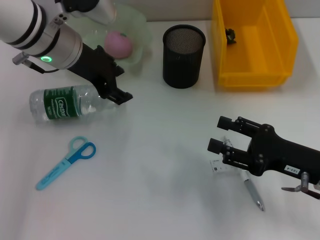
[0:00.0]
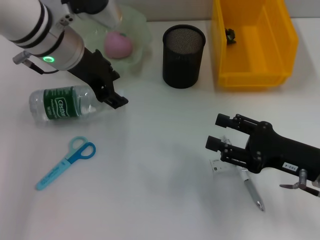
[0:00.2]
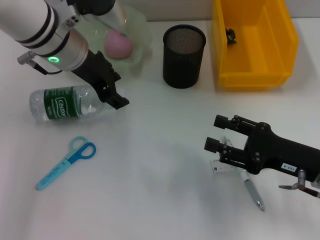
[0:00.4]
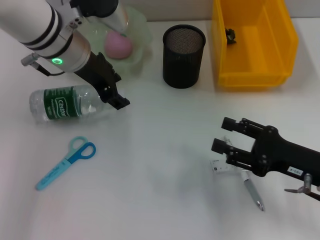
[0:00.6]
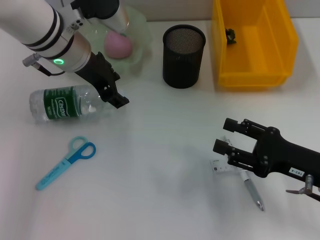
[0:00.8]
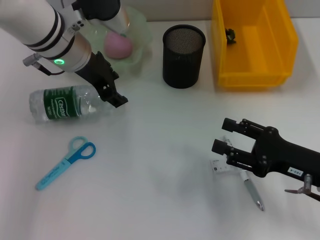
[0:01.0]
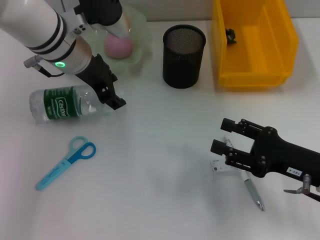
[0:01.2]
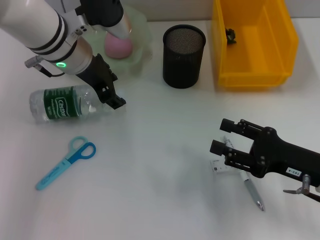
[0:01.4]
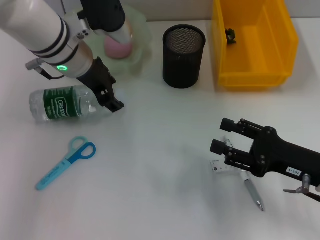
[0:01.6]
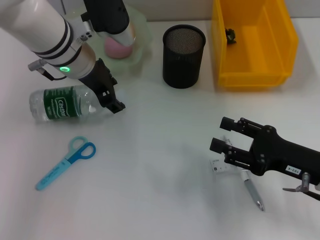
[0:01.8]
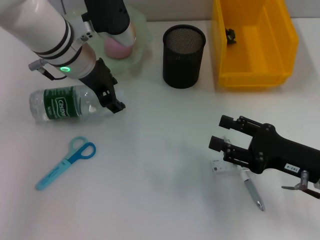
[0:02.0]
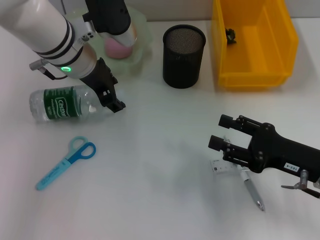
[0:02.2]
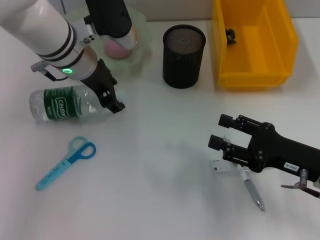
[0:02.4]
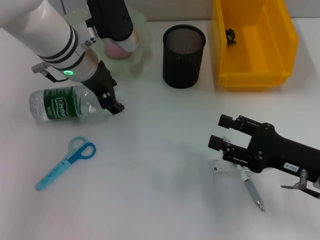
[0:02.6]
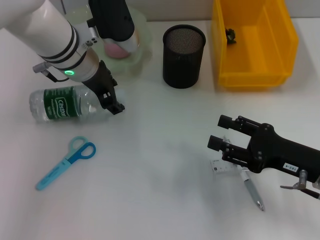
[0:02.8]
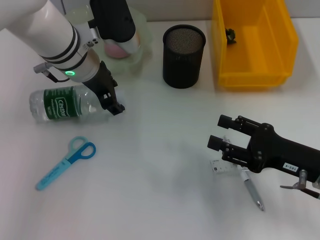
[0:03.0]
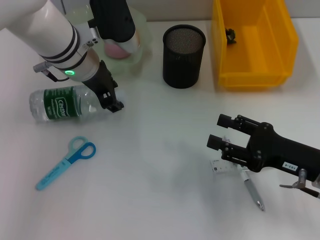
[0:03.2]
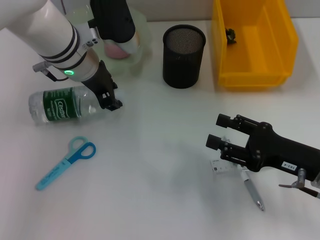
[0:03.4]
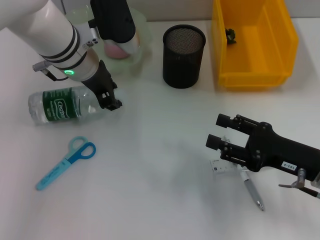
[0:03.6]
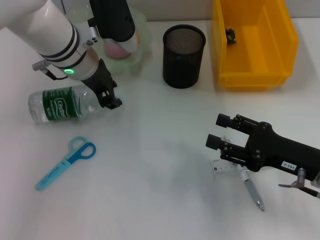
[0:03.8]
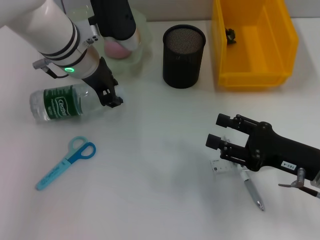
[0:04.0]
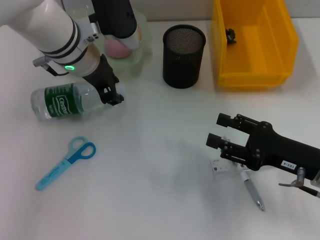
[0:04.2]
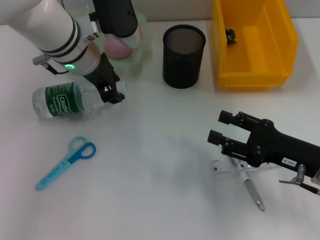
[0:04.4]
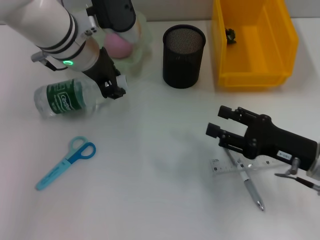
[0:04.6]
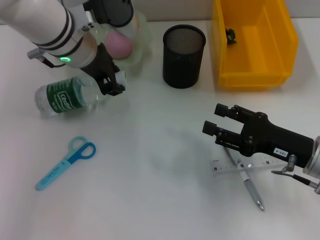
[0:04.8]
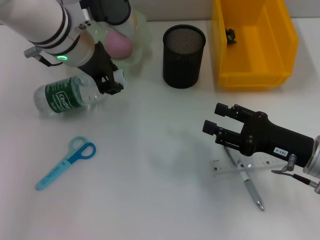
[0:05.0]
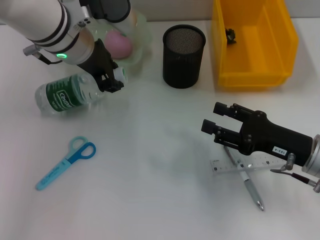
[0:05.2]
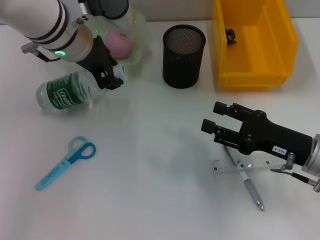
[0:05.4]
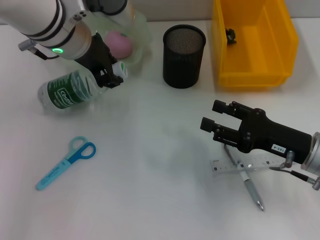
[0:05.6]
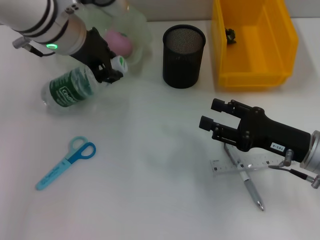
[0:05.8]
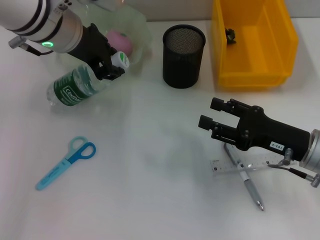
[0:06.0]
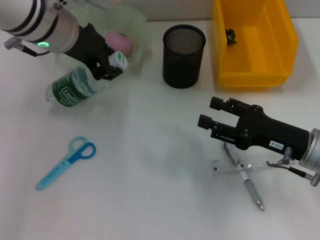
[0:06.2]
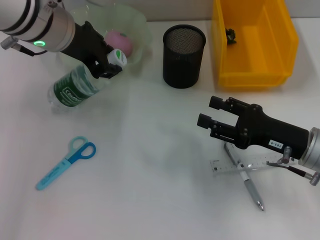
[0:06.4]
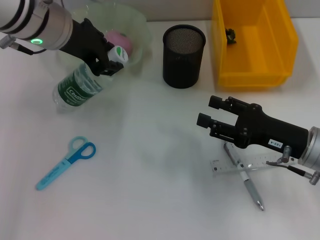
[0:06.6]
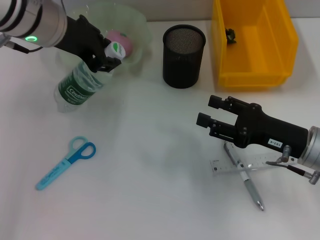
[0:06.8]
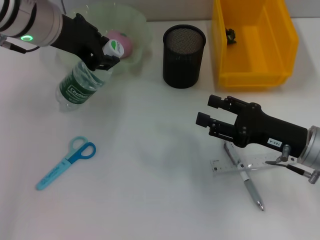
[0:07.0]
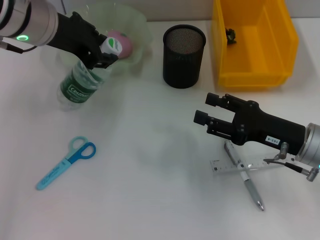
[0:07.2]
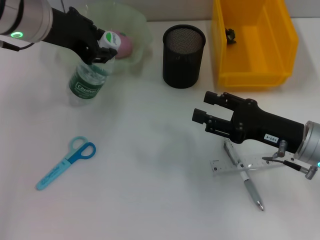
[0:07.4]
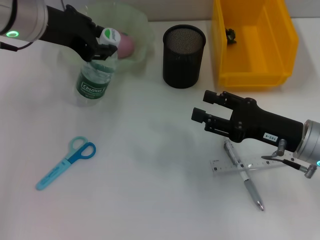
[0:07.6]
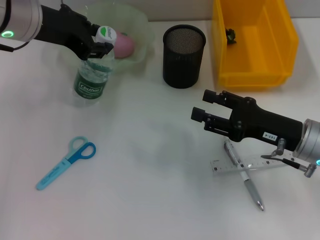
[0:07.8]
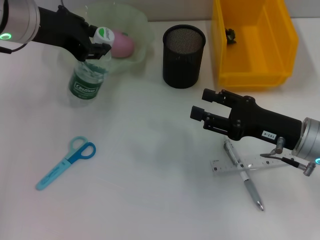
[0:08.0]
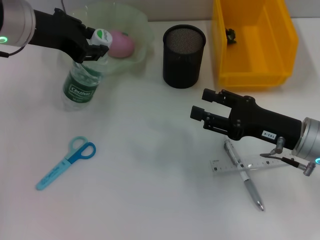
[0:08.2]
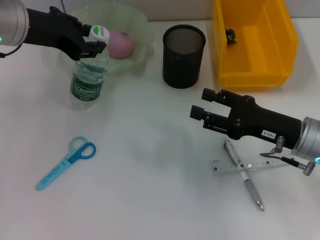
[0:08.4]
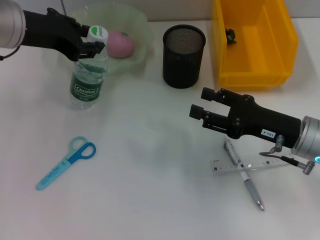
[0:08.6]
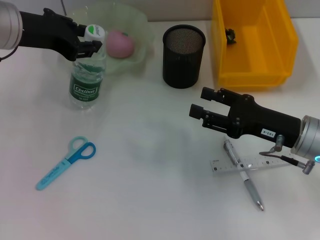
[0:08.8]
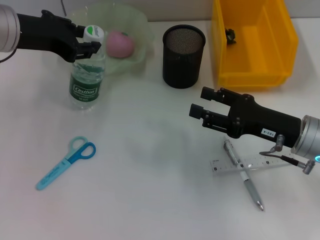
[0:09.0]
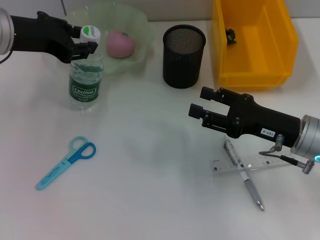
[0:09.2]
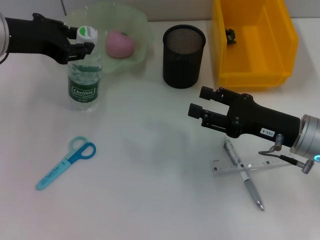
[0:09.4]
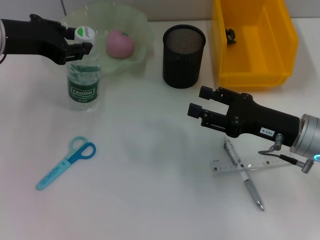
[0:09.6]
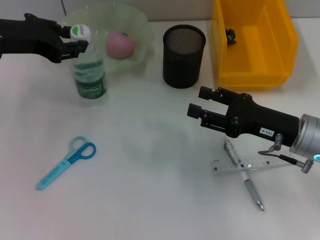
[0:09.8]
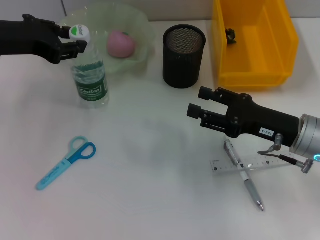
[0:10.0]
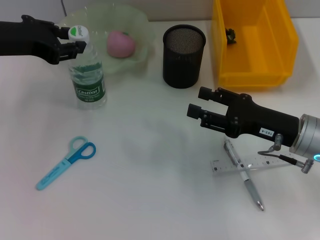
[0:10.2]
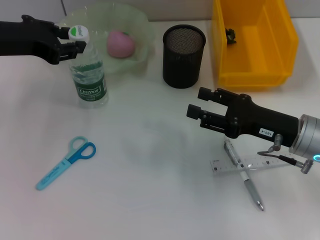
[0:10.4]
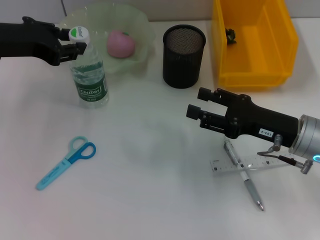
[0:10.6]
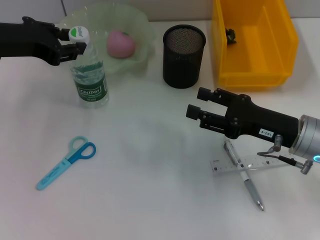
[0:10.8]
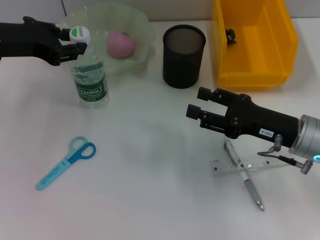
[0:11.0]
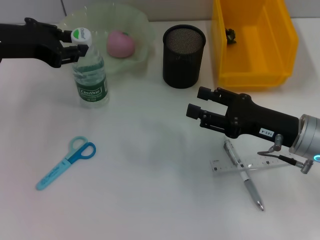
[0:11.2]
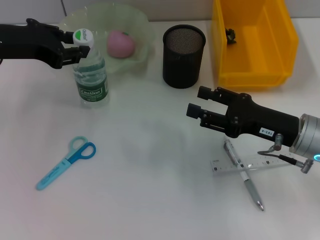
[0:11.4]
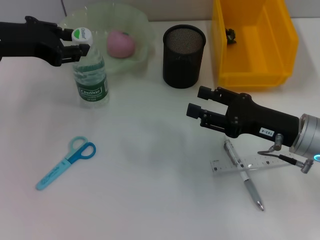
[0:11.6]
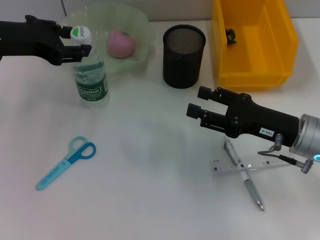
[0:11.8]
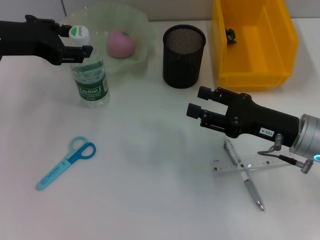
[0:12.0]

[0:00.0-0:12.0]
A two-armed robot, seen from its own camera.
Step, 0:00.0 to 0:03.8: Grab the water bottle with the left hand.
Step, 0:04.0 to 0:11.6: Place the water bottle on the table with the left hand.
0:00.0 to 0:03.0: The grippers move only a little.
0:03.0 to 0:04.4: The two grippers keep their place.
0:04.4 to 0:06.0: The left gripper changes place by about 5 cm.
0:06.0 to 0:07.6: The grippers stay close to where they were, moving slightly.
0:07.6 to 0:09.0: There are only small adjustments of the grippers.
0:09.0 to 0:10.4: There are only small adjustments of the grippers.
0:10.4 to 0:12.0: Both grippers stay about where they are.

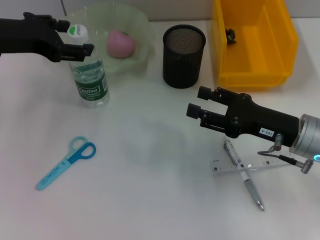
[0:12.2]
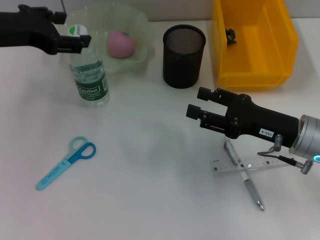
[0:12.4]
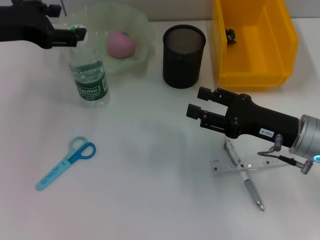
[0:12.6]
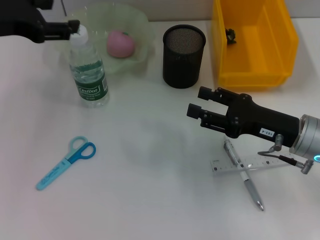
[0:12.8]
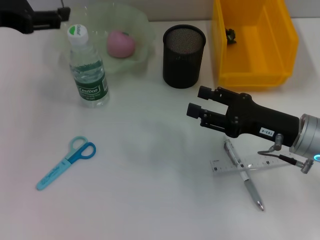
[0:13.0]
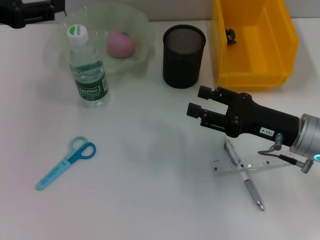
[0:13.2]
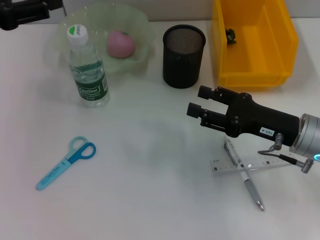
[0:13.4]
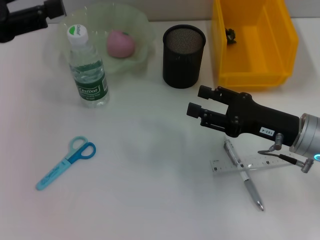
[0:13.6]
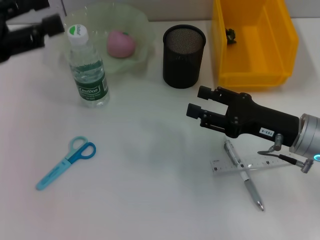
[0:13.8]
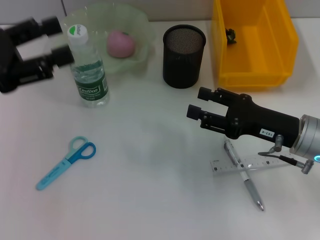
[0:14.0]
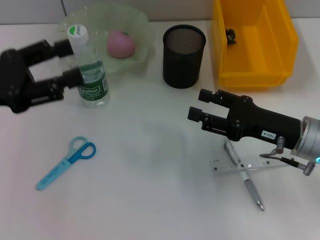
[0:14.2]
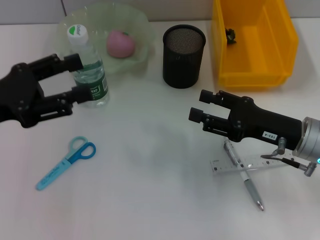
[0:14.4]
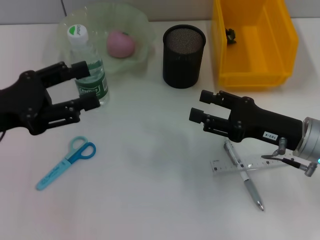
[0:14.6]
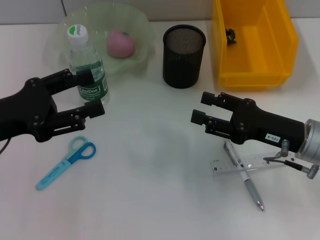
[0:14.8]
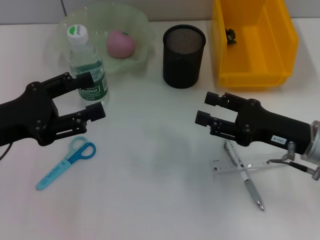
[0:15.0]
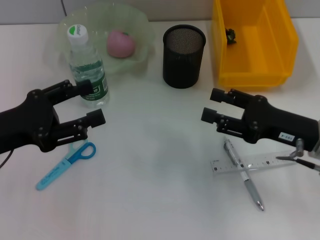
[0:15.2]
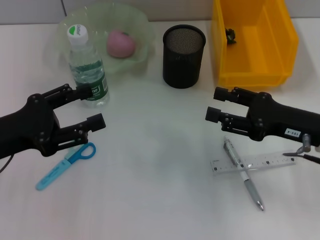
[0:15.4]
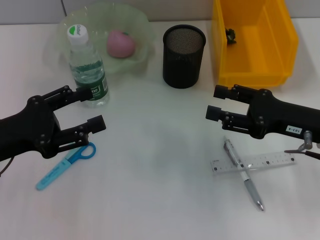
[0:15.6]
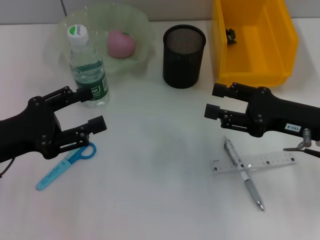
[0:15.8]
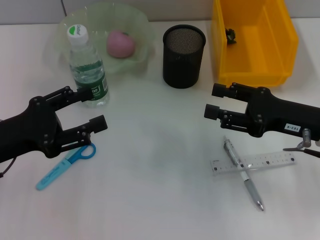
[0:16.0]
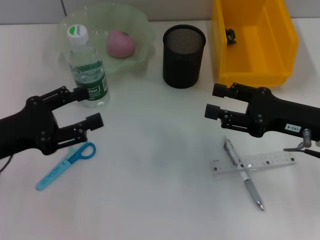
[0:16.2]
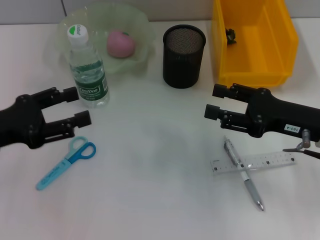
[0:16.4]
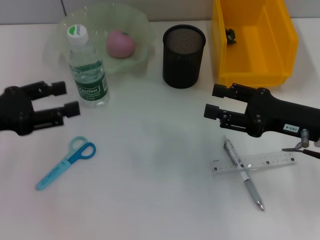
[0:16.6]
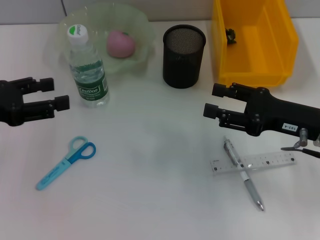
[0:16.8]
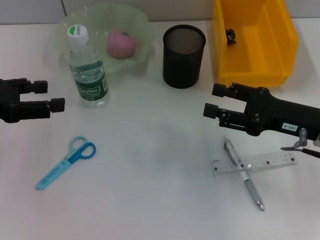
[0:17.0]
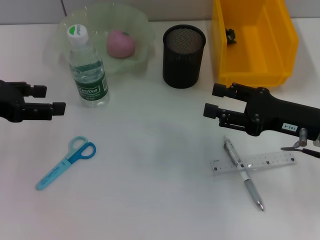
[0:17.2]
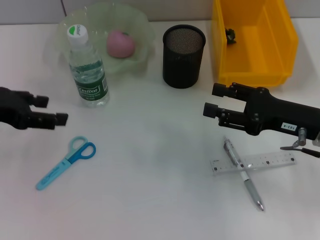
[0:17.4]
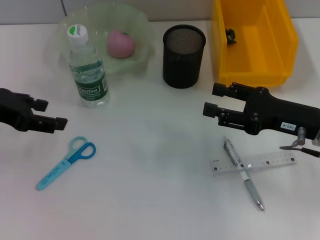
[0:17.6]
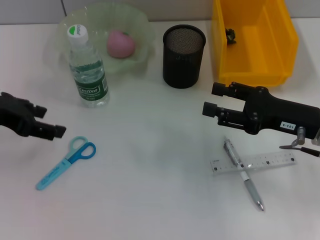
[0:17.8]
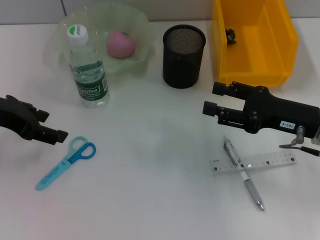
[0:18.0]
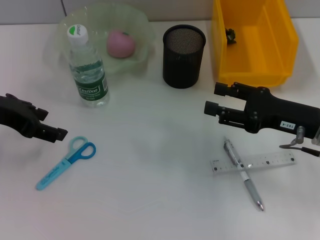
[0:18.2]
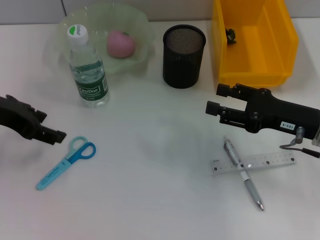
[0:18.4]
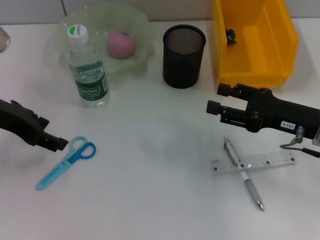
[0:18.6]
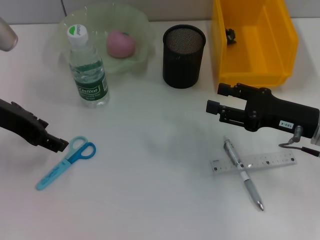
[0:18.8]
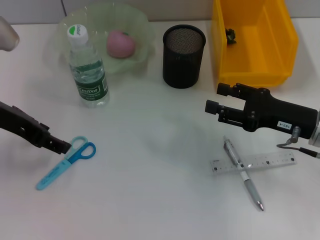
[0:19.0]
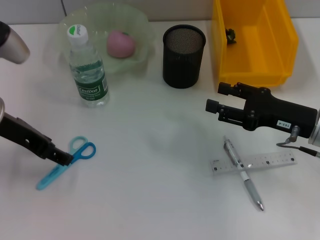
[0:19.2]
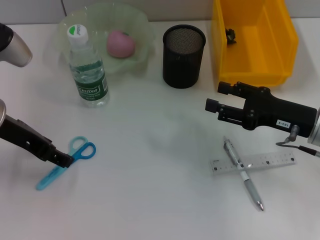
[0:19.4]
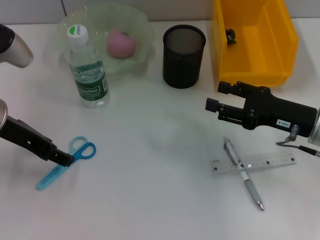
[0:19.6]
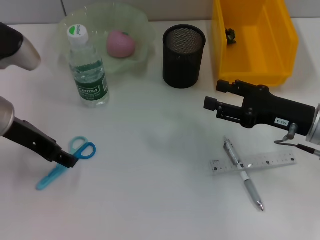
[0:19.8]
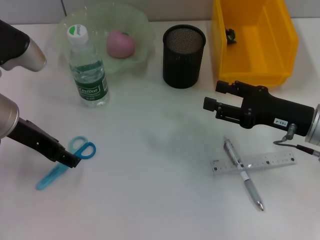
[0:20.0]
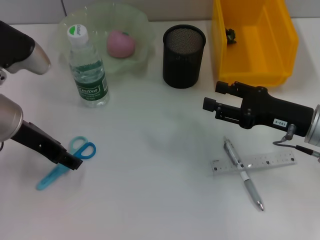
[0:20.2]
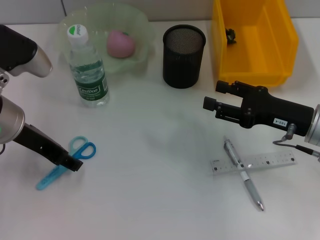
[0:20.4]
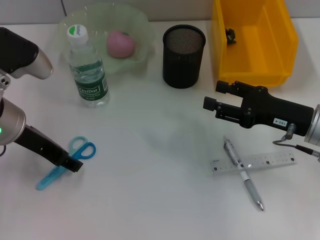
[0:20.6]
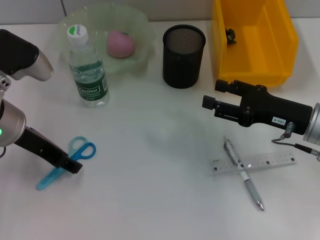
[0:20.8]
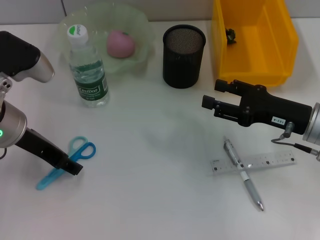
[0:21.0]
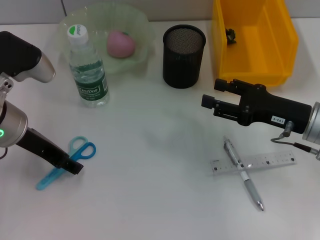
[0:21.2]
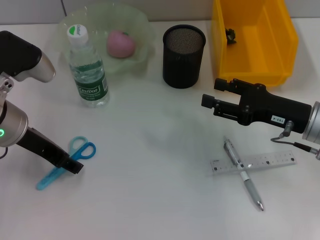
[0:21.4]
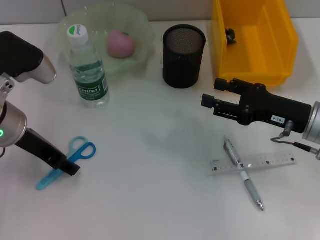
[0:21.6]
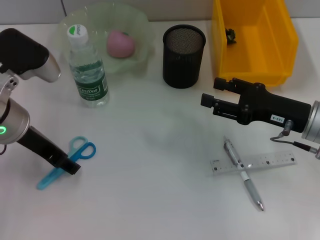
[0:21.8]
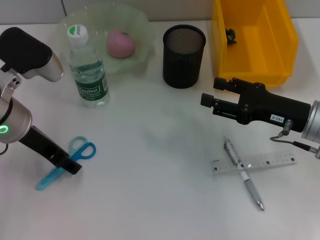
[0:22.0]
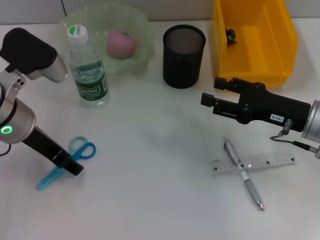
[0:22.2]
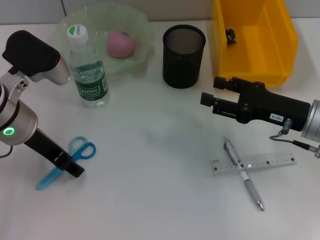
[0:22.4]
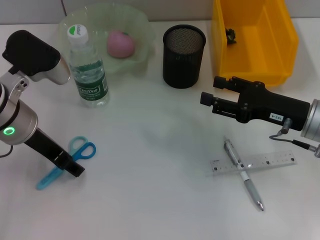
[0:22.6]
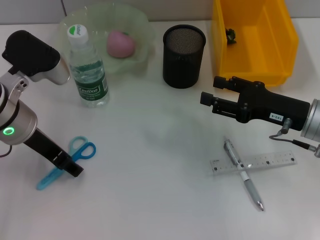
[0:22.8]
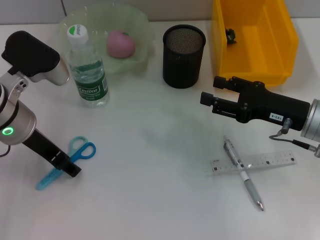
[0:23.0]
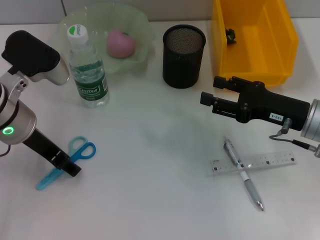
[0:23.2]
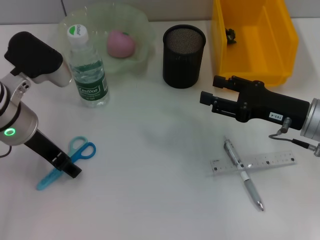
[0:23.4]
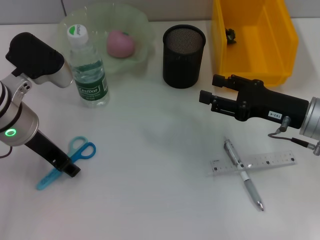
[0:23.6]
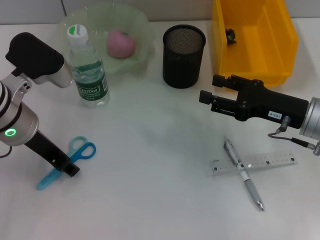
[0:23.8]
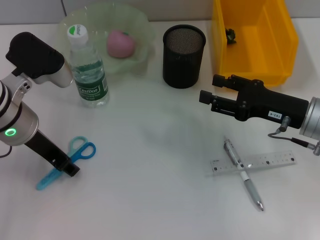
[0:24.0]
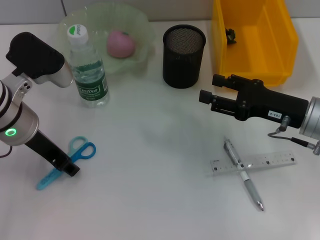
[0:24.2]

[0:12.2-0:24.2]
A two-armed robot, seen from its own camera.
0:12.2 to 0:13.8: The left gripper moves backward and to the left, about 10 cm.
0:13.8 to 0:15.2: The left gripper goes some 10 cm downward.
0:15.2 to 0:16.6: The grippers make only small movements.
0:16.6 to 0:18.2: The left gripper shifts approximately 5 cm forward.
0:18.2 to 0:19.8: The grippers move only a little.
0:19.8 to 0:22.6: The grippers stay close to where they were, moving slightly.
0:22.6 to 0:24.2: Both grippers stay put.
